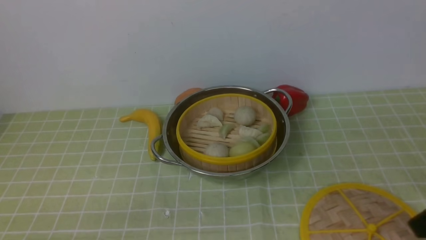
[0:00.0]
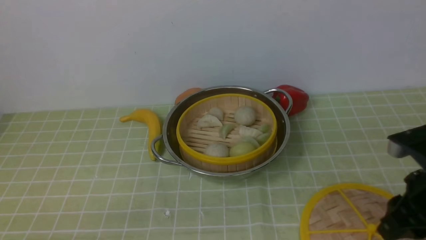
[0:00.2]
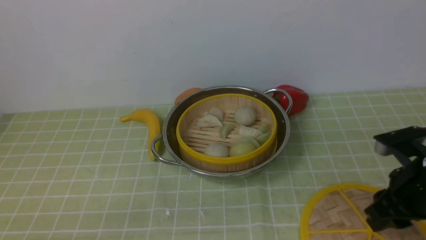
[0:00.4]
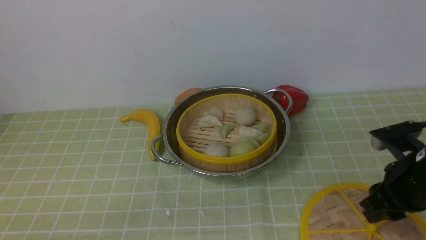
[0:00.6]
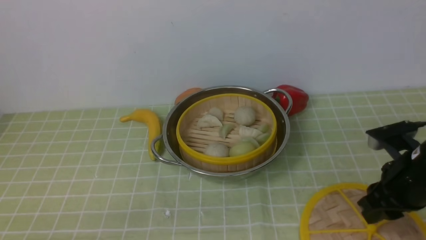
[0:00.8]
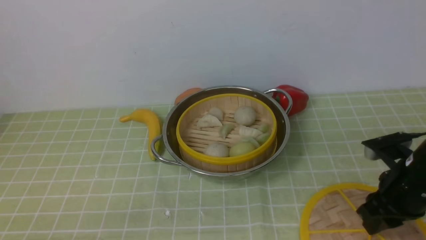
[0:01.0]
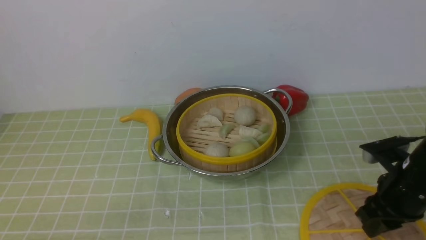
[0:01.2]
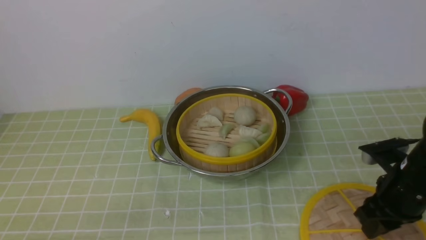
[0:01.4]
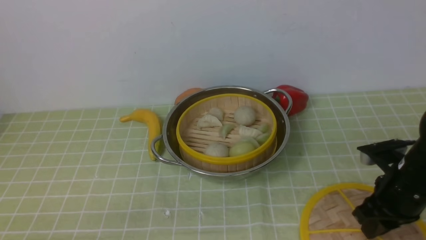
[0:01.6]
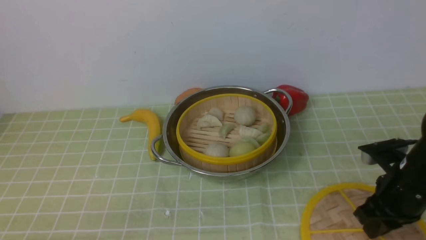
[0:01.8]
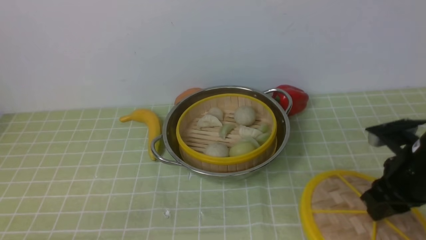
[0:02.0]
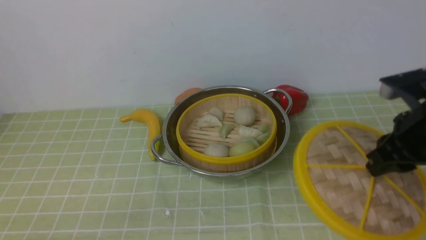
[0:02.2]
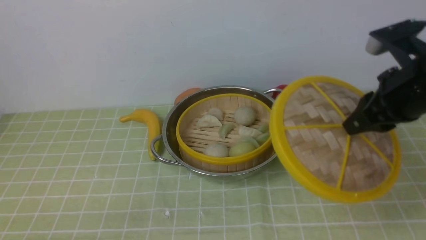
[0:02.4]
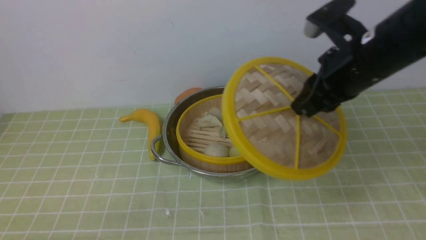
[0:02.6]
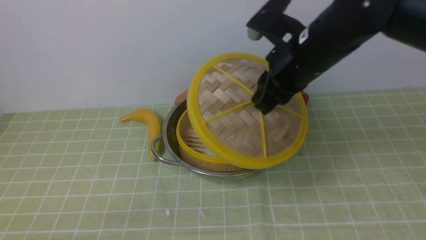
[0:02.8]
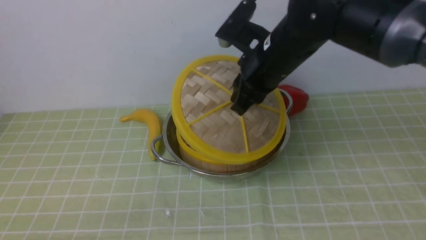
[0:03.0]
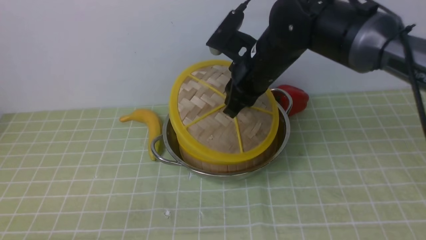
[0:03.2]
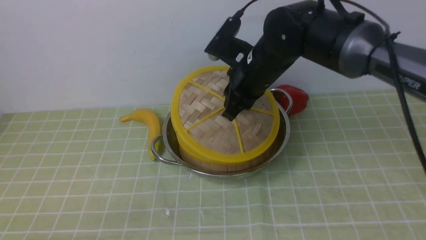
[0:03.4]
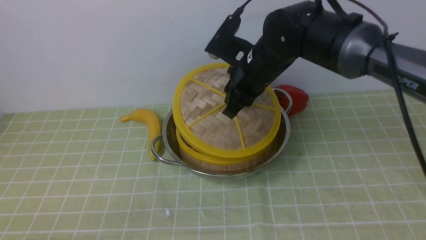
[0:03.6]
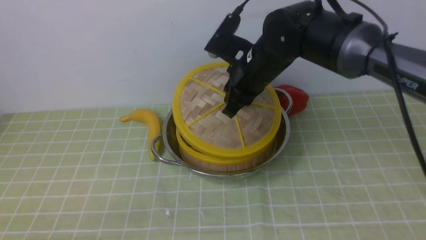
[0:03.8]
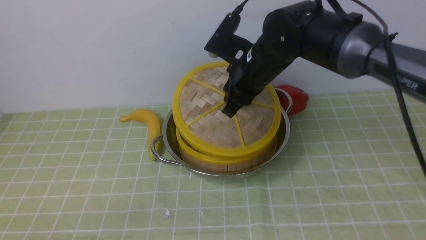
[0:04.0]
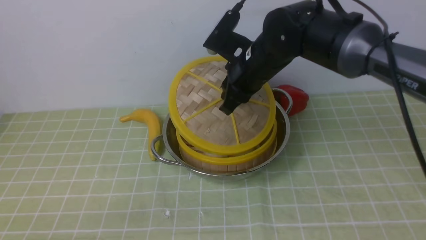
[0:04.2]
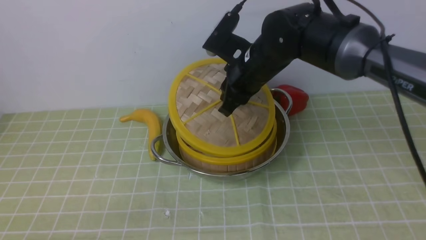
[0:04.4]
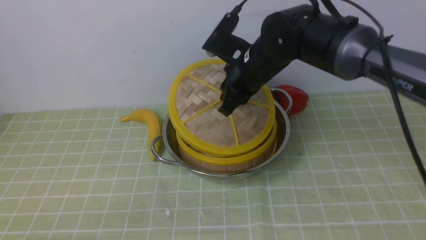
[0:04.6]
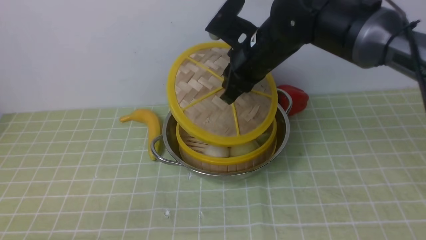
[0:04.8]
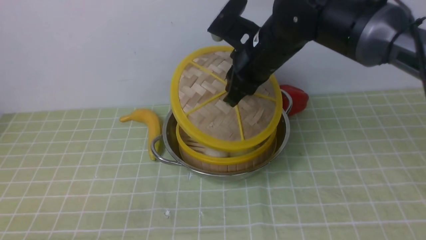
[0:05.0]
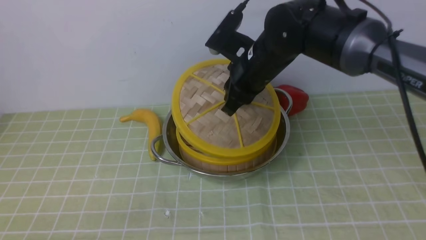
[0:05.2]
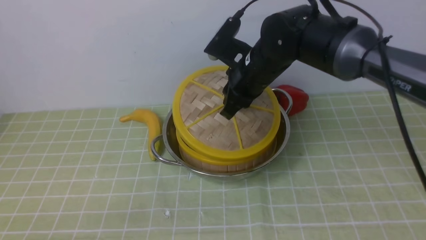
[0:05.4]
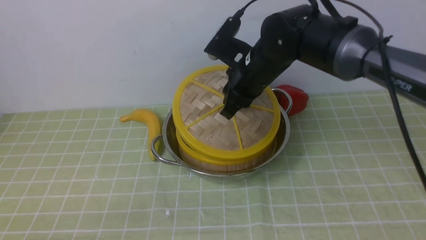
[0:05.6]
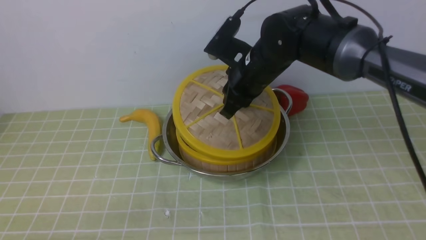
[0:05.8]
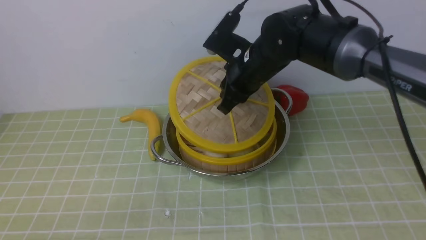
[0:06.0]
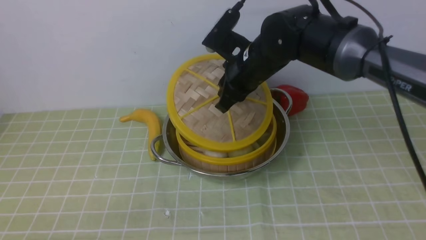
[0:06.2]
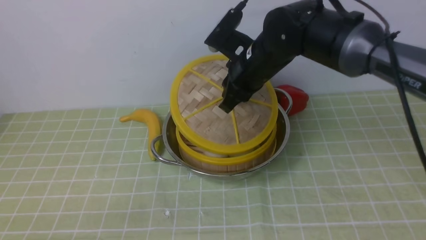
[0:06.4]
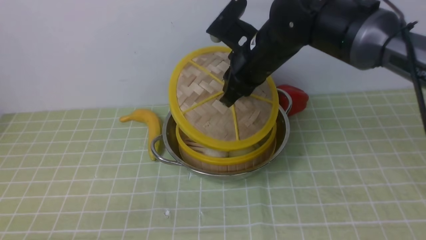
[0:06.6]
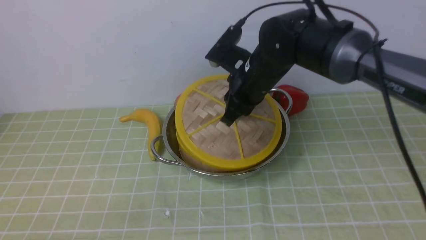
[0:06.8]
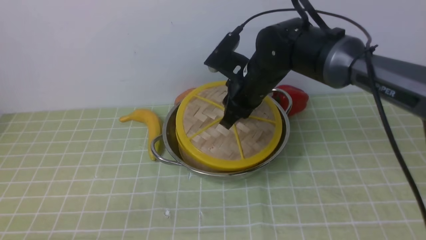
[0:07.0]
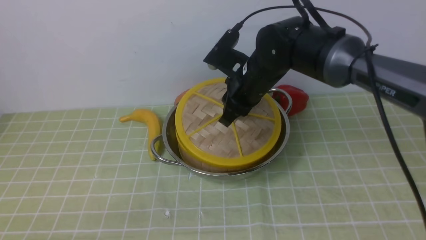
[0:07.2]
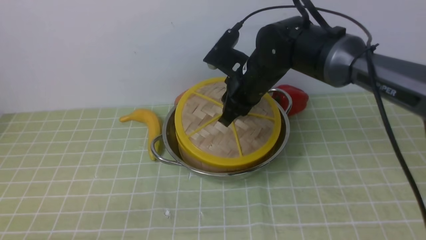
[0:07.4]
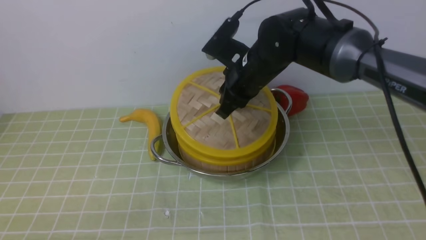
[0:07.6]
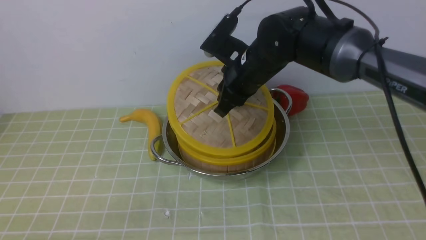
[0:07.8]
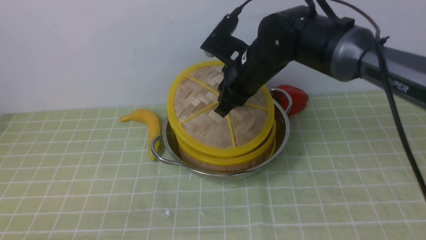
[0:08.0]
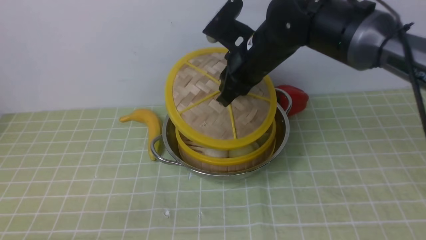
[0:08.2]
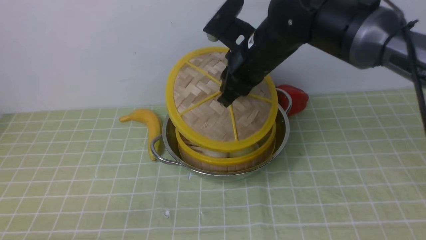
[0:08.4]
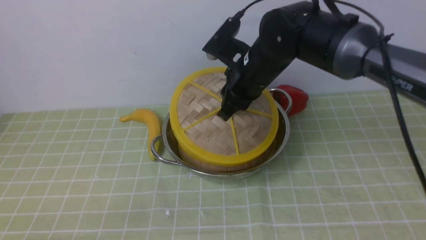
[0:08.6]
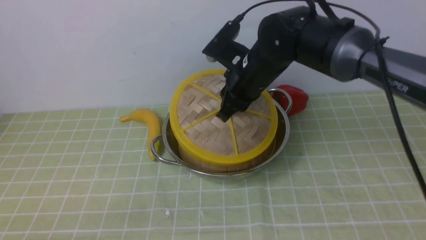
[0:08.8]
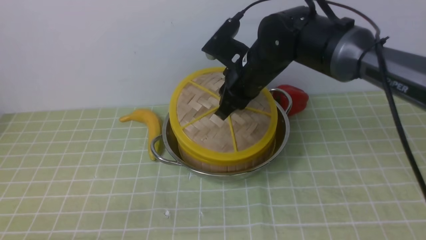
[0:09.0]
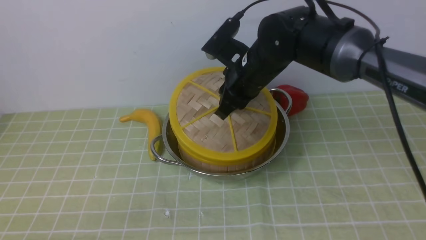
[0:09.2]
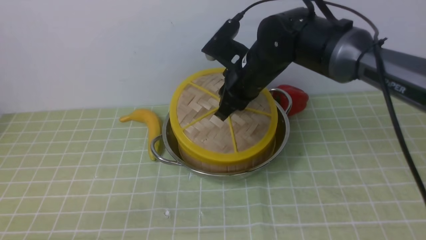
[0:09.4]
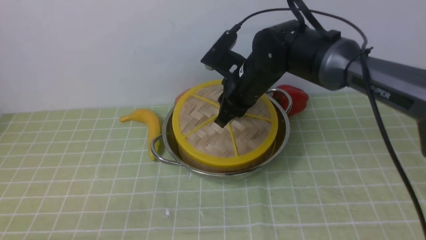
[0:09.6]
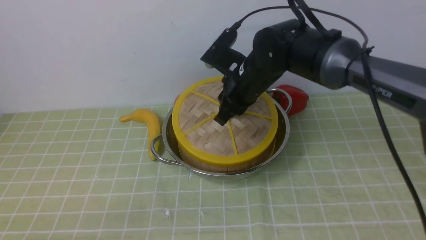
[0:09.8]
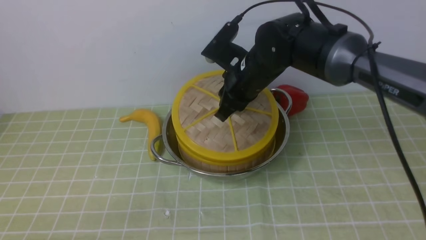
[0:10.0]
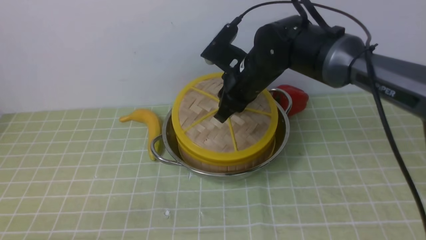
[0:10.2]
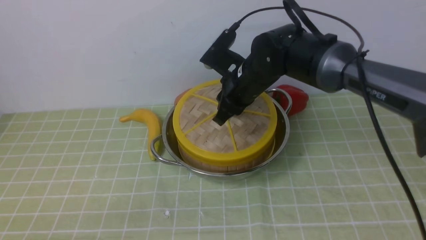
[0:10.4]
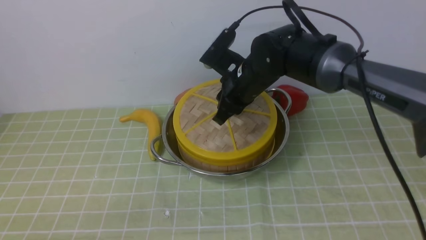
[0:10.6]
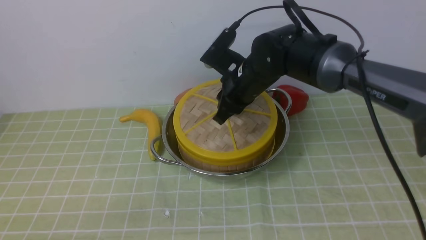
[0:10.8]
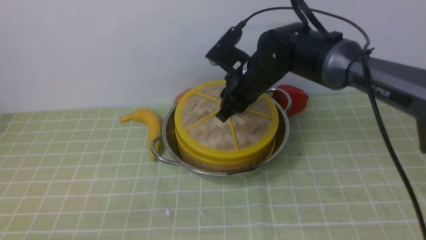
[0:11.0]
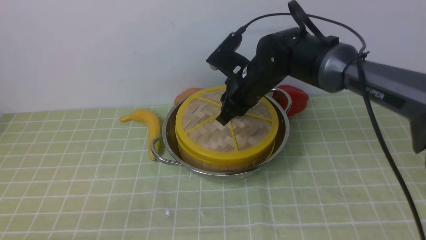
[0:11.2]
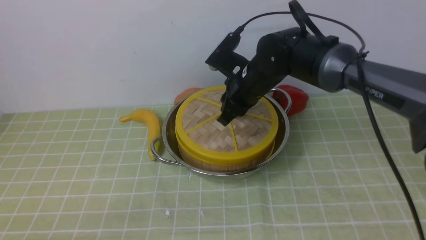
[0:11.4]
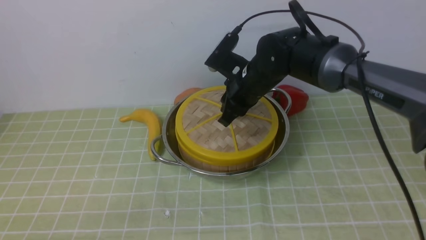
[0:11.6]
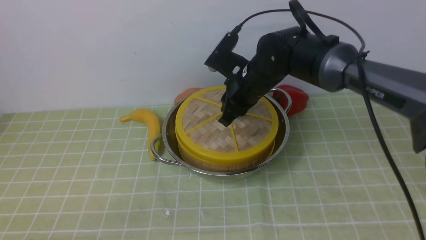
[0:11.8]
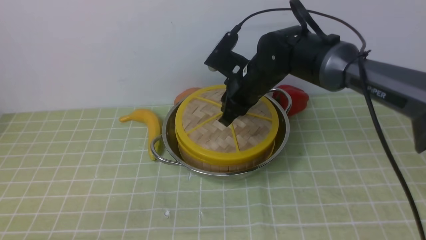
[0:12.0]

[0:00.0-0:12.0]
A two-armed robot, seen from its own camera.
Task of the whole recording: place the steamer in the pot on the green tablecloth, and put the lid on the steamer.
Step, 0:00.0 to 0:02.2: use the right arm to lift the lid of the steamer.
0:00.0 to 0:01.6: The right gripper moves downward and forward, roughly 15 cm.
0:01.6 to 0:03.0: The right gripper heads to the left, upward and forward, covering some 25 cm.
0:03.0 to 0:04.4: The right gripper moves roughly 5 cm.
0:04.4 to 0:12.0: The grippers move only a little.

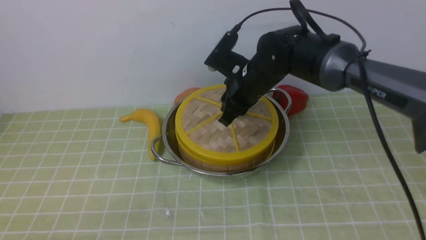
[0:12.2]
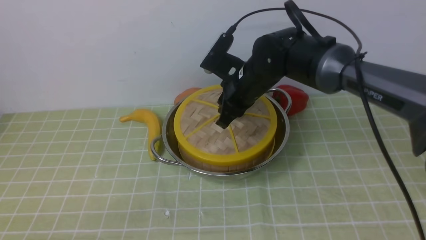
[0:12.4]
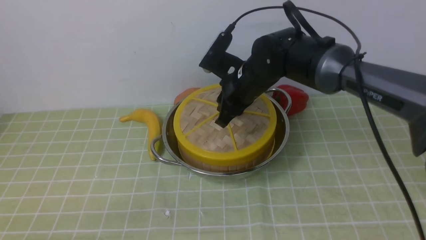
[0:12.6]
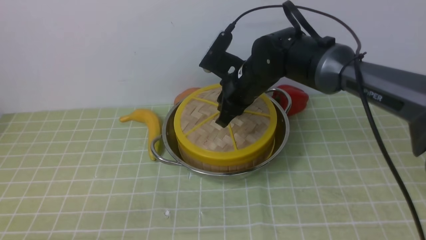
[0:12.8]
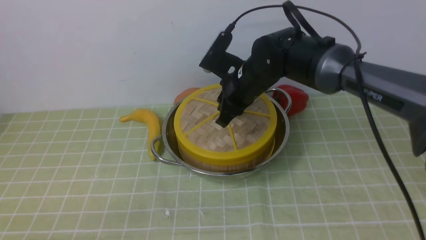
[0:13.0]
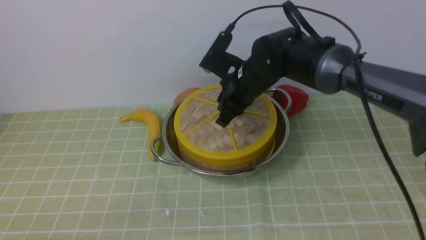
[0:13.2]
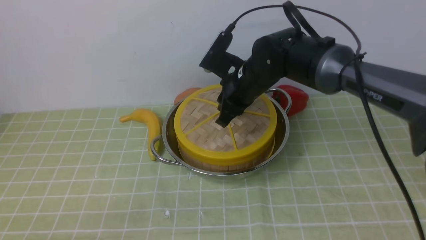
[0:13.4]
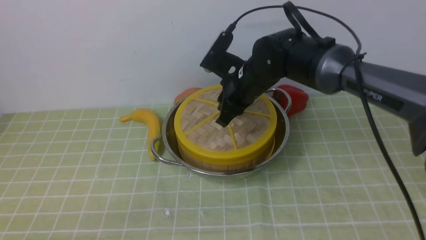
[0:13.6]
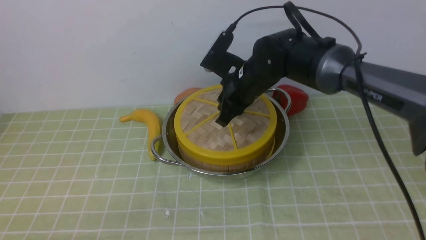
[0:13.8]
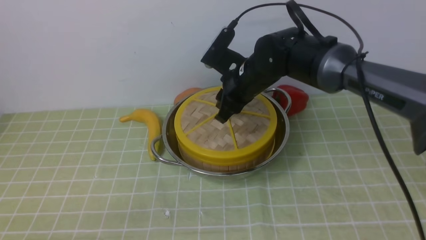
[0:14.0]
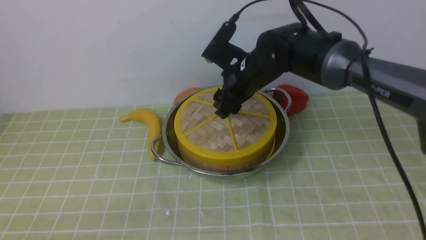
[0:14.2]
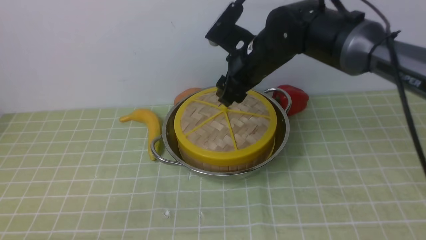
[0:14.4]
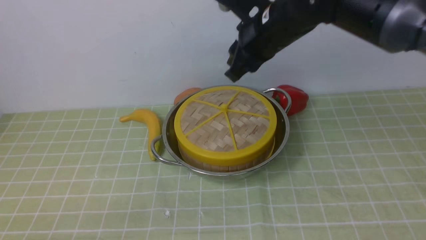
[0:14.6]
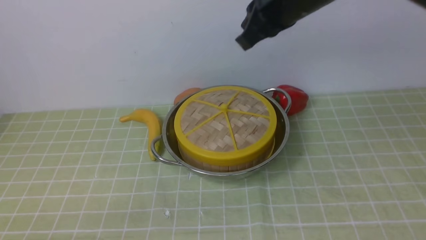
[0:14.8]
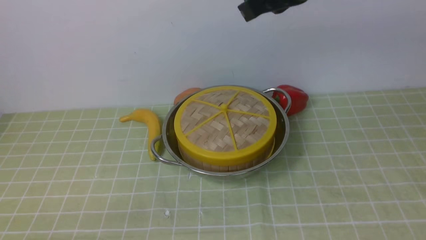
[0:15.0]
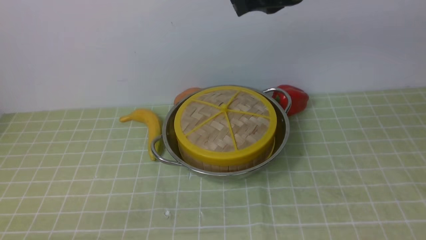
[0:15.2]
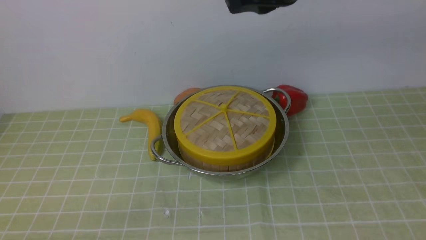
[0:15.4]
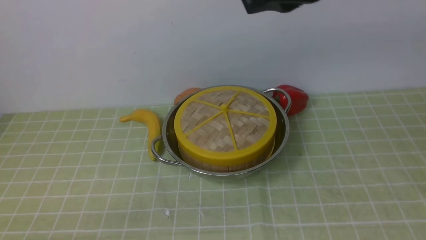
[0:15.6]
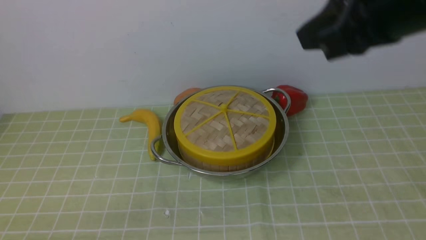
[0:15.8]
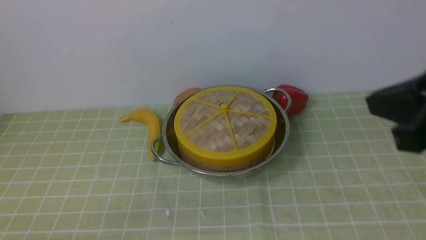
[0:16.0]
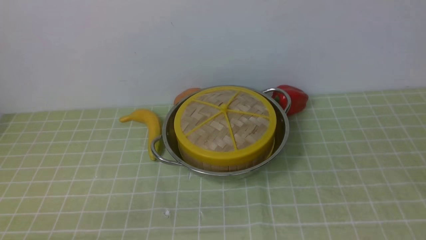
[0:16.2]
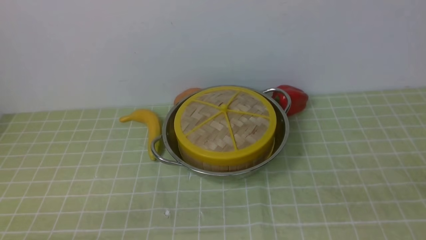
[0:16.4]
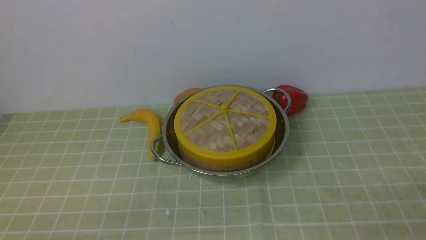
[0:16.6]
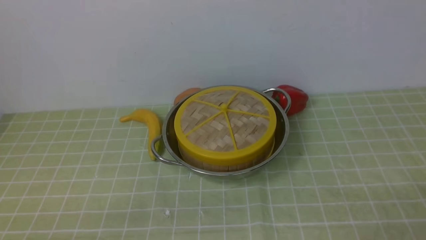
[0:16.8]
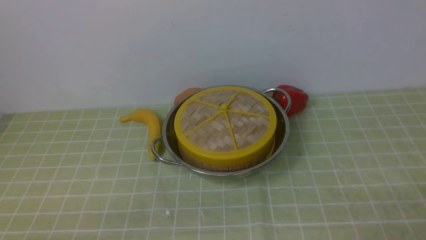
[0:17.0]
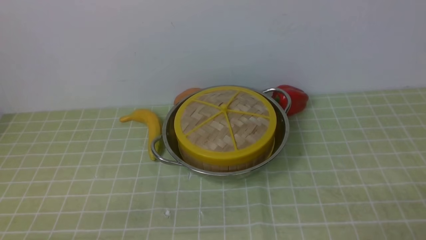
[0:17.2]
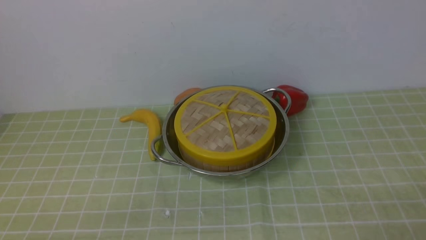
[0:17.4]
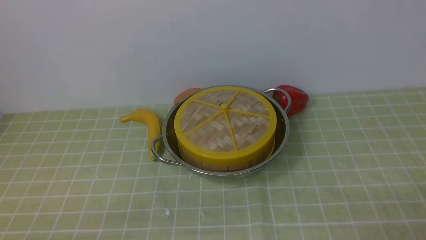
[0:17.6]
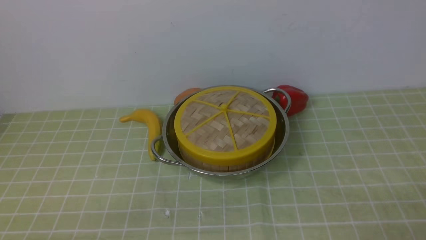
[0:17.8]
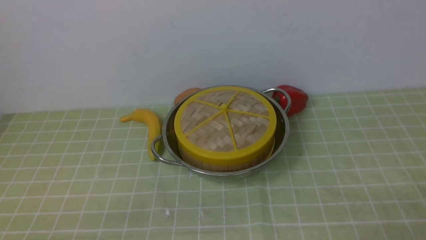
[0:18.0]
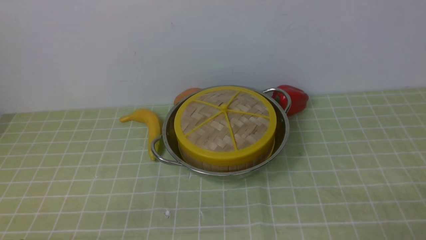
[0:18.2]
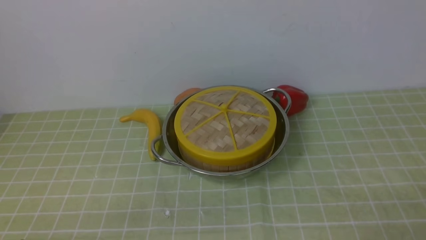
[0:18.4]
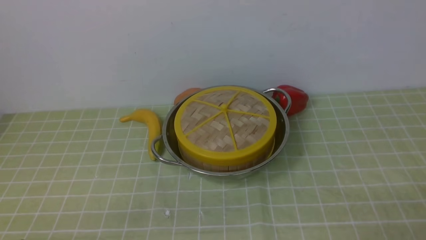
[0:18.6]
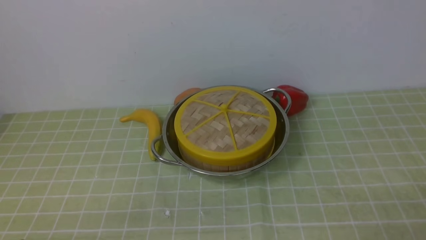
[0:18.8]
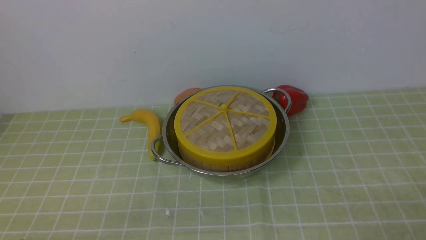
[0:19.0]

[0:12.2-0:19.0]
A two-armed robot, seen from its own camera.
Task of the whole recording: place the steamer in the pot on the green tablecloth, and put the lid on the steamer.
0:12.2 to 0:13.6: Both grippers stay about where they are.
0:13.6 to 0:15.0: The right gripper goes some 20 cm upward and backward, and closes up.
0:15.0 to 0:16.2: The right gripper goes approximately 30 cm backward, to the right and downward.
0:17.6 to 0:19.0: Both grippers stay about where they are.
